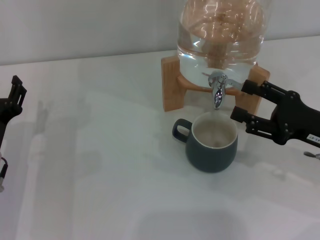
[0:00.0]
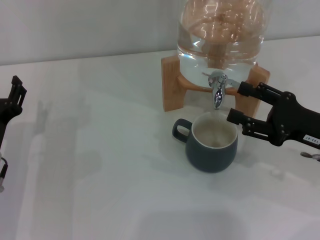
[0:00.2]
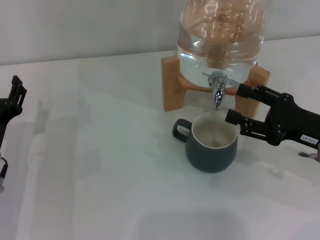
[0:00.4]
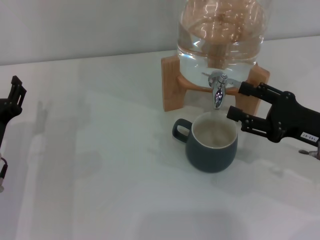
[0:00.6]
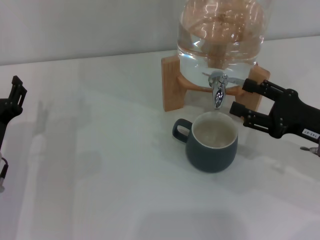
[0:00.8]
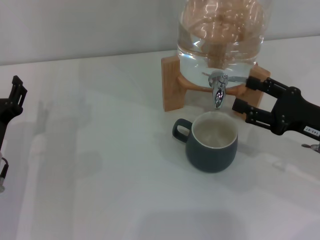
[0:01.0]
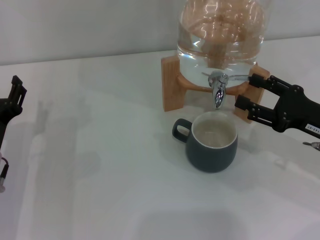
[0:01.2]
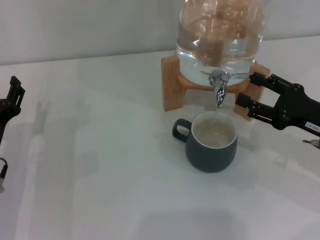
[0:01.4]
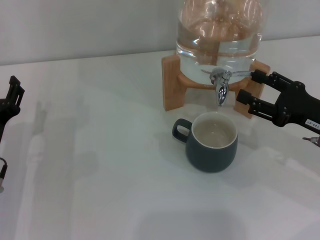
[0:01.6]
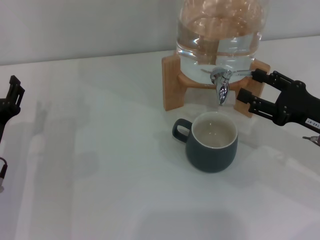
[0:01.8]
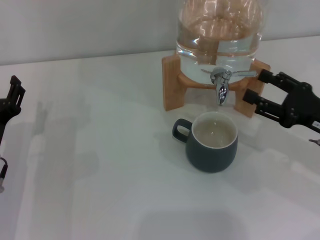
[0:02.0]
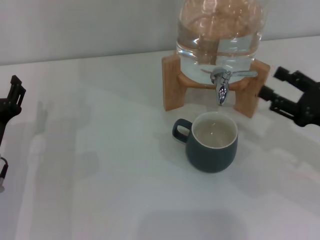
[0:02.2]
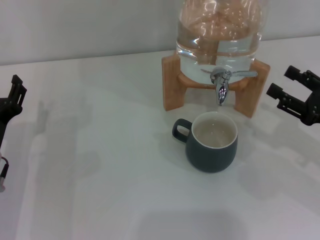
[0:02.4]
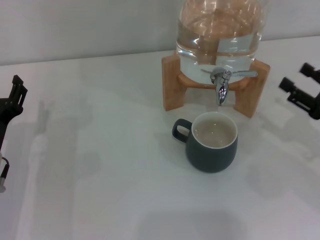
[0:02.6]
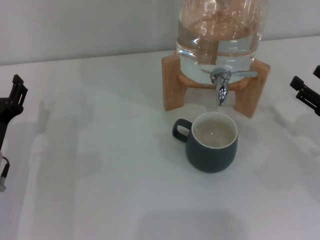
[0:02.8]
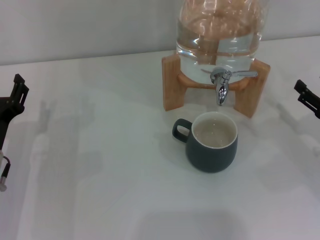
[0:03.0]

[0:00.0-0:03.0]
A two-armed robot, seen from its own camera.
Task of the whole recording: the left gripper pick up the black cup and place it horizontally under the faucet, the right gripper turn on the faucet to fill the cup, and then turn off the faucet.
Step, 0:00.2 to 0:02.0: Close the dispenser valve with the right gripper.
0:00.0 to 0:01.6: The grippers stay close to where they were, moving slightly.
0:01.6 to 0:03.0: The right gripper changes place by about 5 cm.

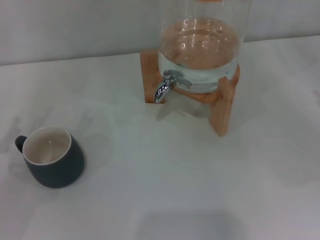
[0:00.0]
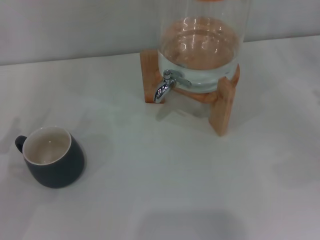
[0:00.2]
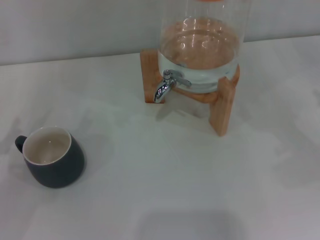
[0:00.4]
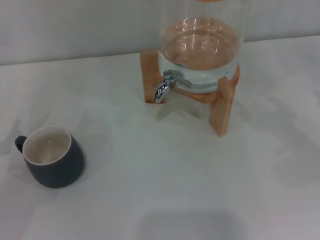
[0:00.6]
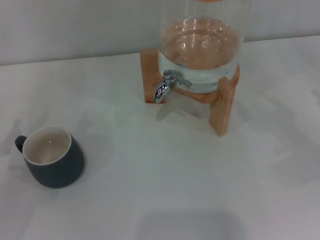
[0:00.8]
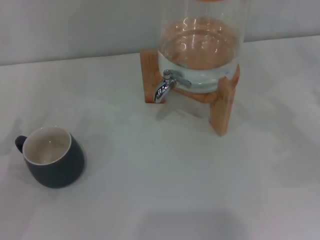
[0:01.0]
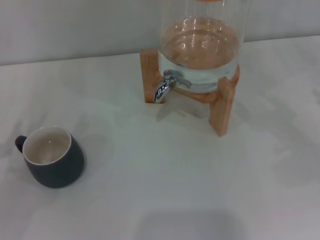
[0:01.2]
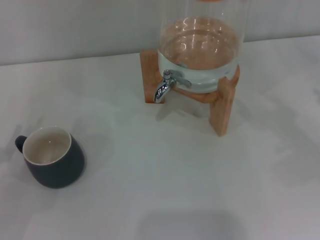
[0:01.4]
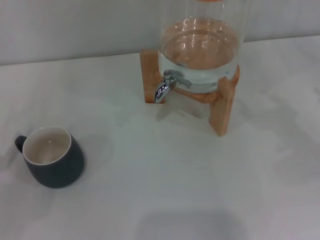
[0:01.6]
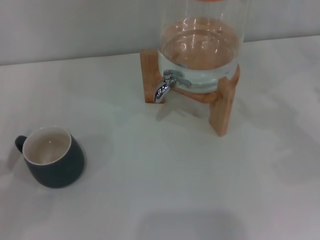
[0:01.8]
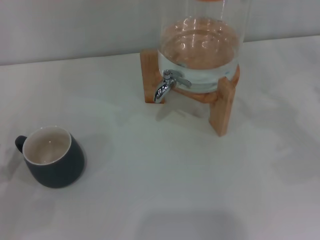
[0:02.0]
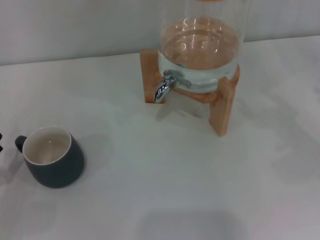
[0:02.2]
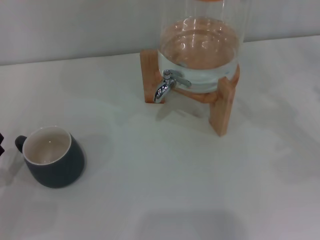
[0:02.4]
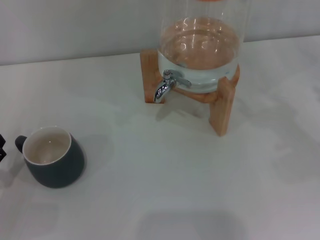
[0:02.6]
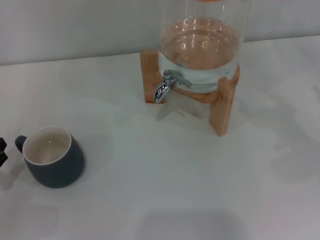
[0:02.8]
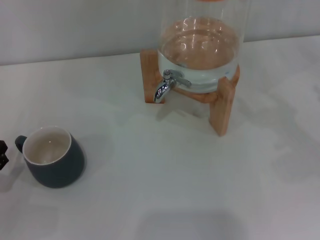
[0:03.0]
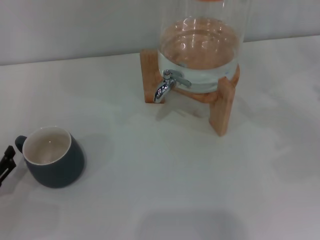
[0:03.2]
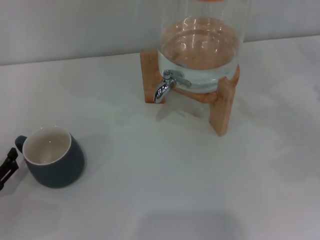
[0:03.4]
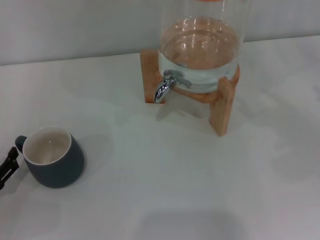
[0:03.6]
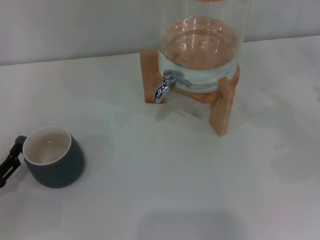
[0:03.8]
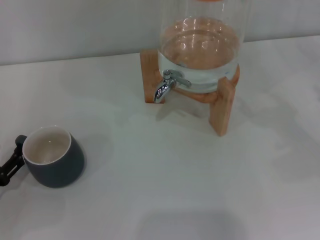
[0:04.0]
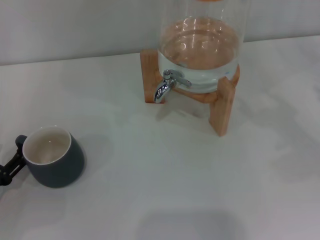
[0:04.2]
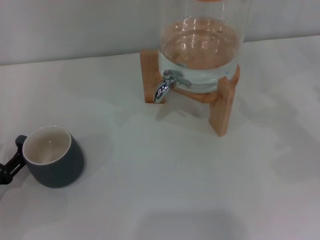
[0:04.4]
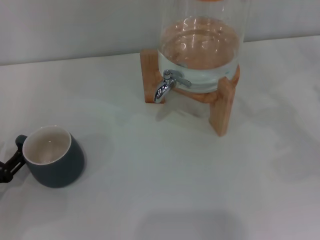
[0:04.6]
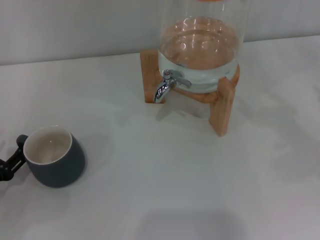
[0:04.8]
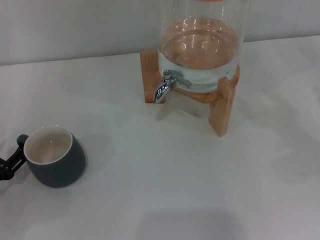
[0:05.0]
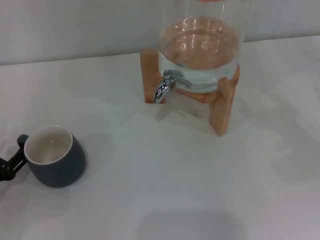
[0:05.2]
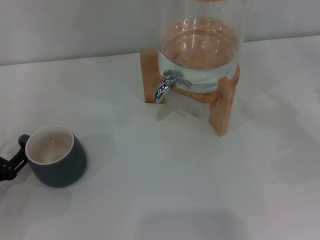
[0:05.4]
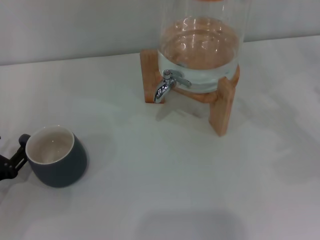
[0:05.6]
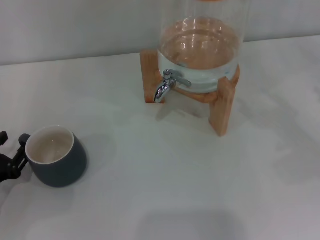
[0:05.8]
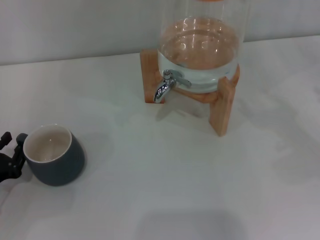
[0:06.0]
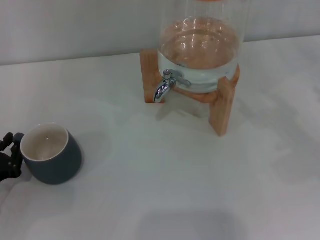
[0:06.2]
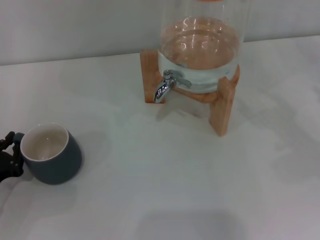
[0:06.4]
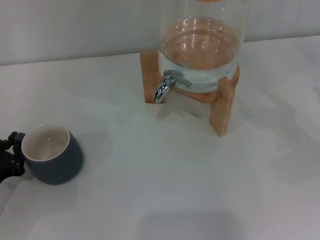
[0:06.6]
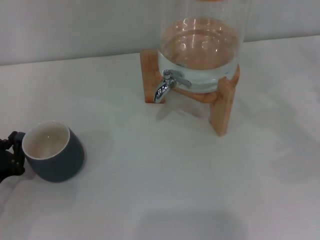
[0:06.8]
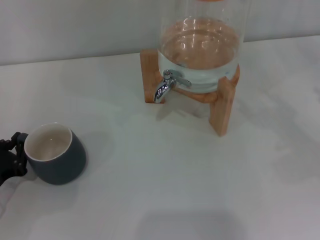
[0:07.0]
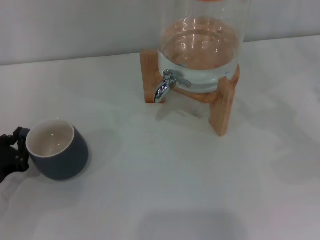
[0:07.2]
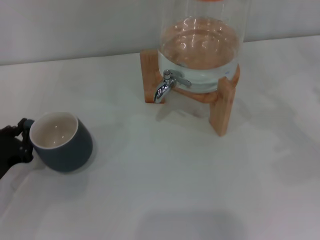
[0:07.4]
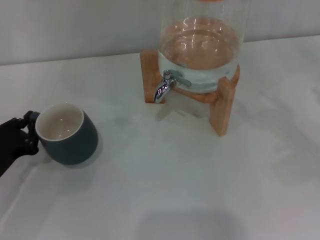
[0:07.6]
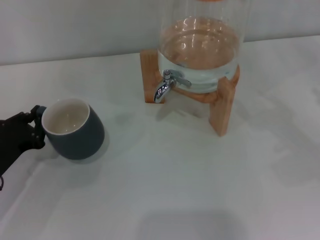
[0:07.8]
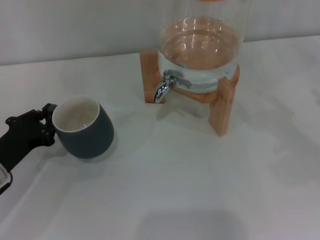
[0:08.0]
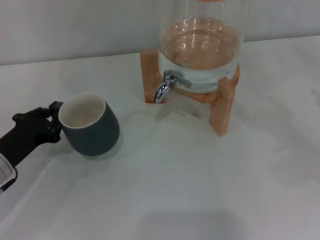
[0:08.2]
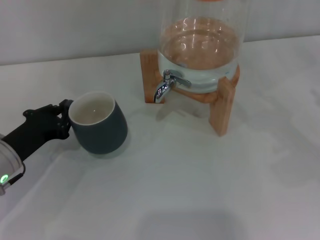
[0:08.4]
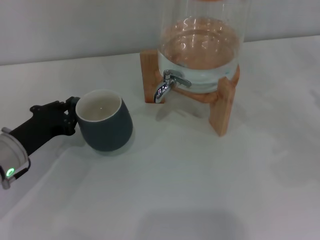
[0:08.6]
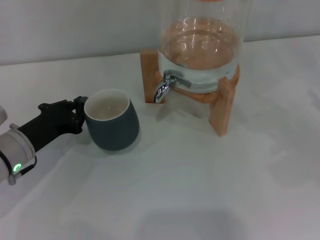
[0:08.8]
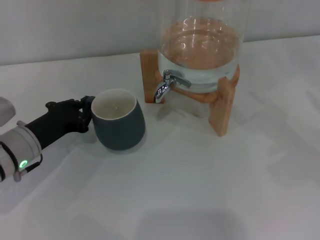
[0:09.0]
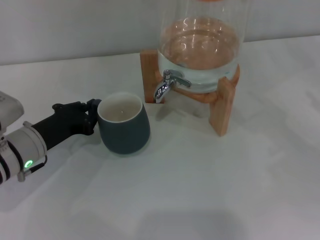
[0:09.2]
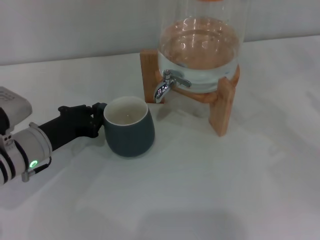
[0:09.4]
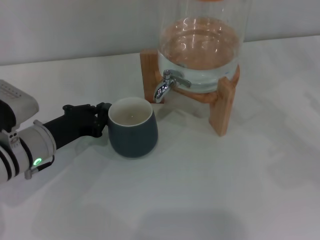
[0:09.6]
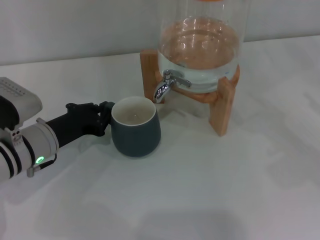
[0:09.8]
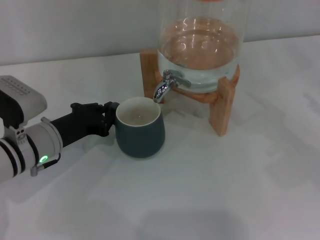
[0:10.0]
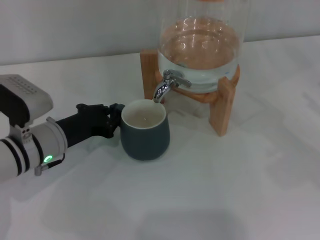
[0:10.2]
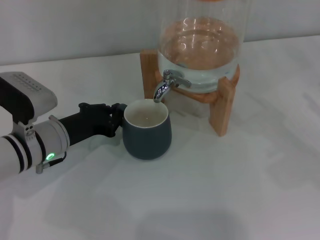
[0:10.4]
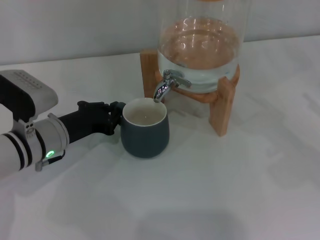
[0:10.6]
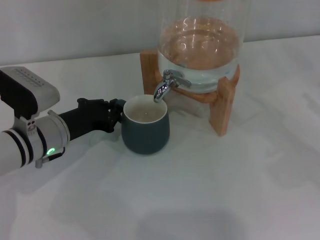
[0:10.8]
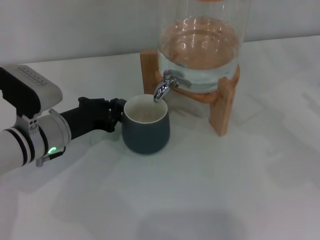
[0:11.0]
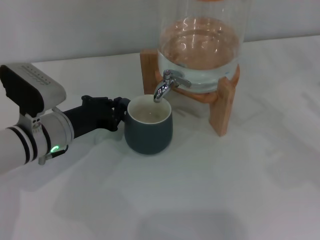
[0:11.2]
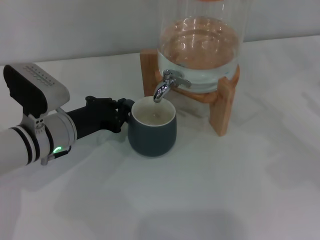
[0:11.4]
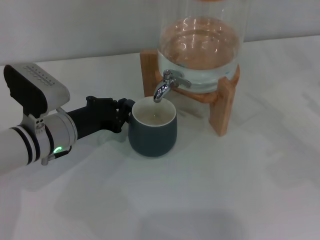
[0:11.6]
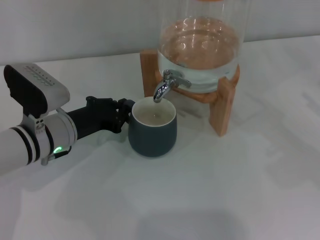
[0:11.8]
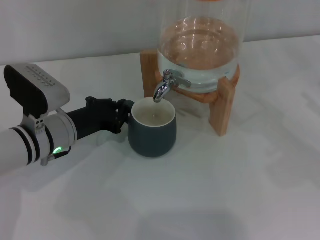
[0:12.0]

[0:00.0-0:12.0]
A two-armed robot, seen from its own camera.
Task of the whole recording: the left gripper pick up the black cup and place it horizontally under the faucet, the right gripper turn on the faucet to fill the cup, and then turn off the faucet.
0:03.0 to 0:06.0: There are only small adjustments of the grippers.
0:06.0 to 0:07.6: The left gripper closes.
0:07.6 to 0:09.0: The left gripper is displaced to the right and forward by approximately 10 cm.
0:09.0 to 0:12.0: The grippers stay close to where they were, moving slightly.

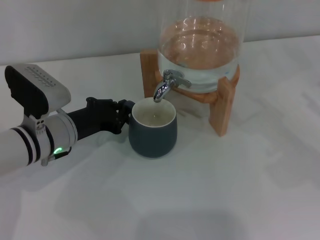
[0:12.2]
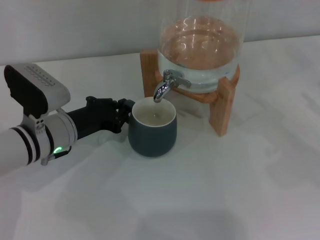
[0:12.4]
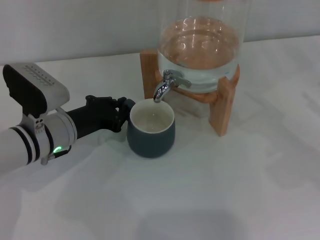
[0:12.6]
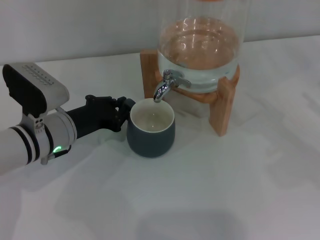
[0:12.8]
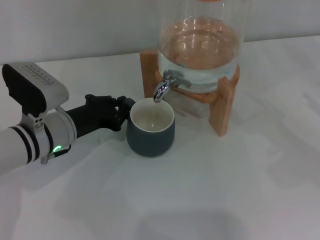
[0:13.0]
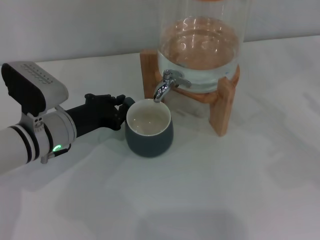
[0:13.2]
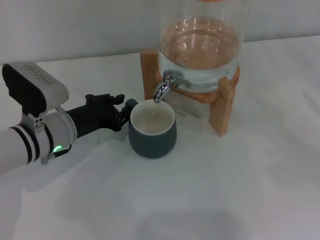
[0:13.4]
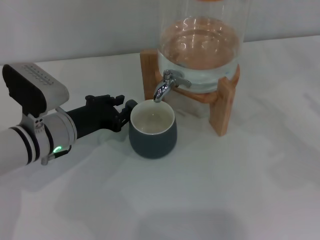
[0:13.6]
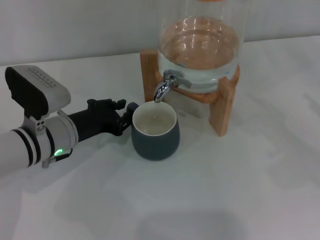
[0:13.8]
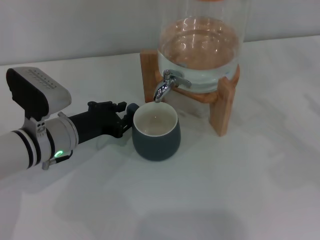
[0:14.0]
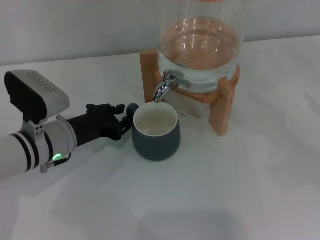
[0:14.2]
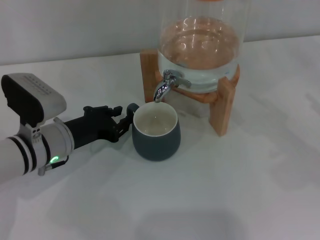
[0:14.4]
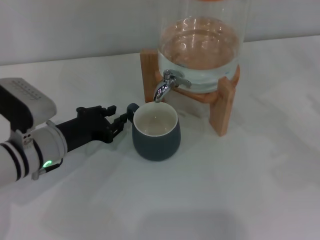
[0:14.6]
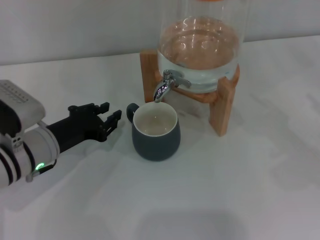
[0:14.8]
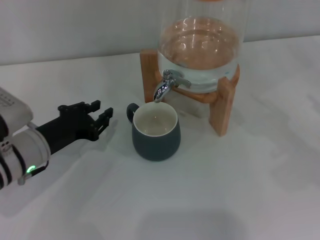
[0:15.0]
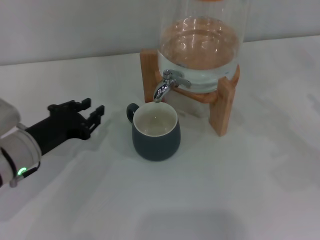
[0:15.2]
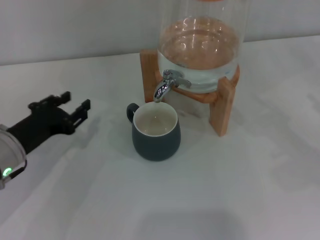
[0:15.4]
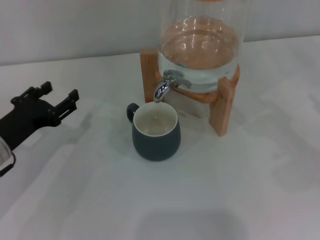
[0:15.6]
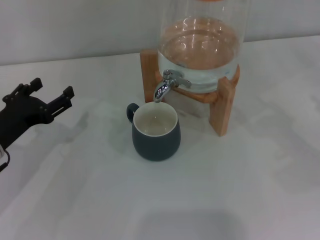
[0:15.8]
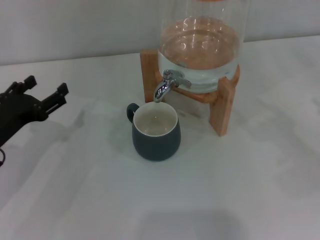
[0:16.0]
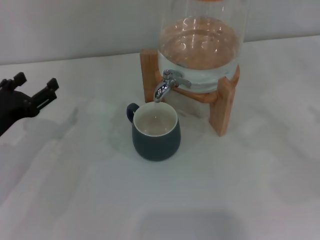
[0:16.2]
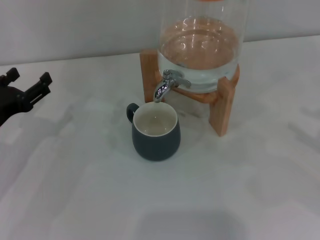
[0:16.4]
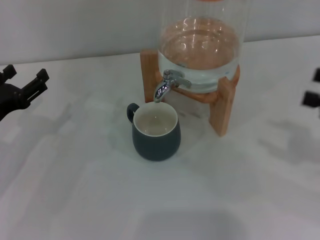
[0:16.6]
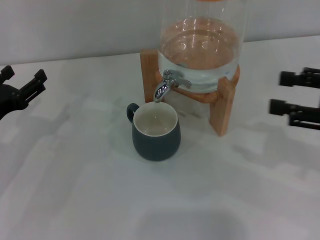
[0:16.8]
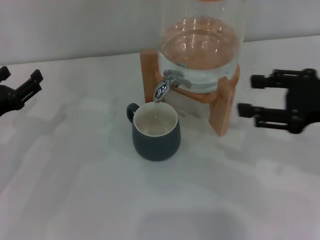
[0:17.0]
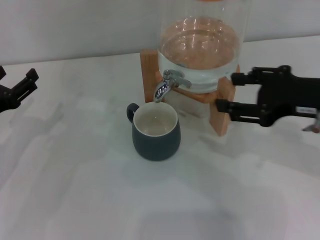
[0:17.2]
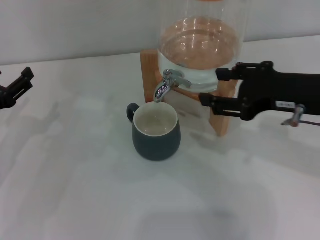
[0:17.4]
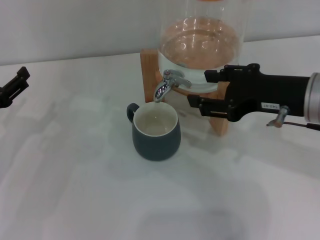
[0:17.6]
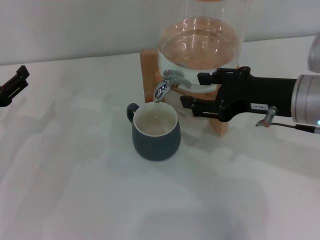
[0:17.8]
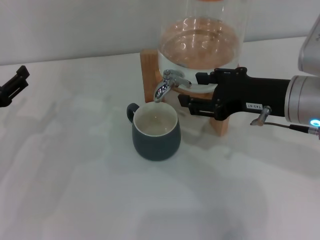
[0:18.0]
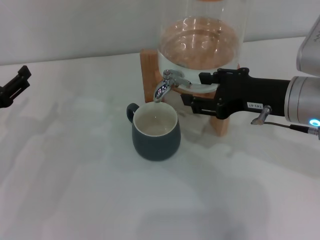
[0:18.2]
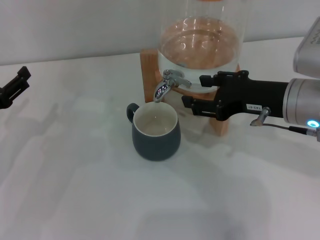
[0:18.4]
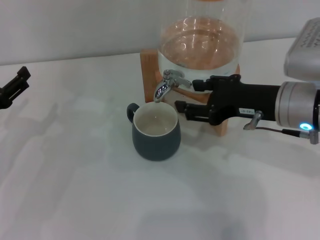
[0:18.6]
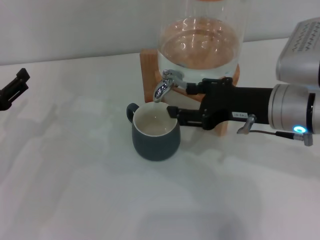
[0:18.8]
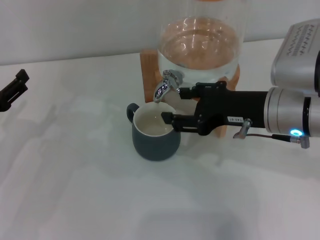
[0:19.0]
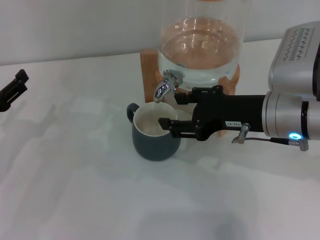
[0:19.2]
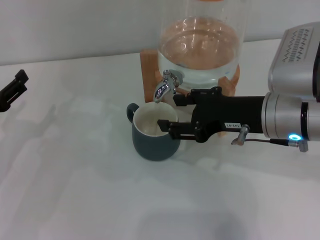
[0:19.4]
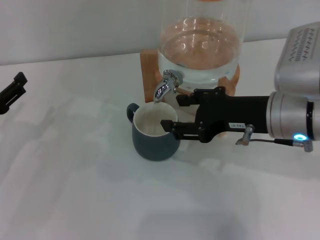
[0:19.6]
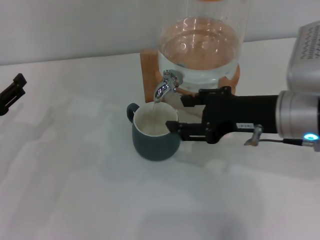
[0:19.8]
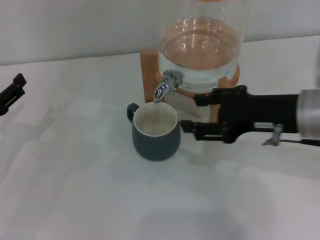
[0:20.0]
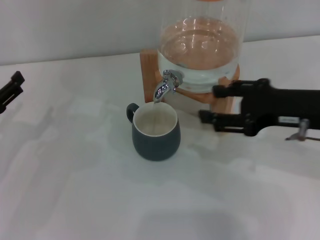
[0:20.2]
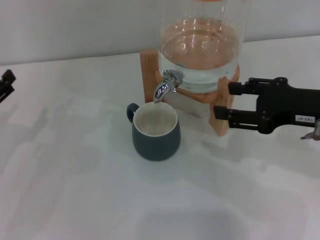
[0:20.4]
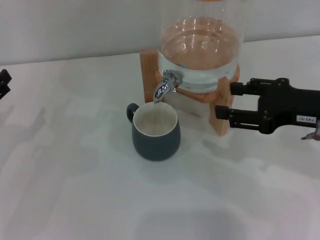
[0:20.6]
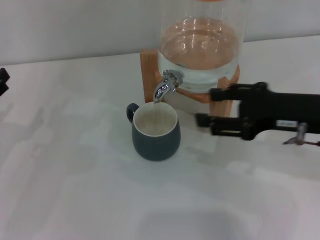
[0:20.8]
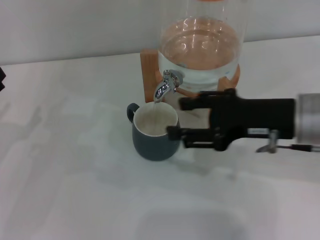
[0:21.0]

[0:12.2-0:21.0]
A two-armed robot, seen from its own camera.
Task of the whole recording: the left gripper pick up the black cup and place it horizontally under the faucet, the right gripper turn on the faucet to fill the cup, and then turn off the faucet.
Step, 0:12.2 to 0:14.6: Move the cup beneath the water dispenser nozzle with the left gripper.
Step, 0:14.8 to 0:19.4: Open the dispenser valve and fill the cup with water with the right gripper.
0:12.2 to 0:13.6: The two grippers keep their place.
0:13.6 to 0:15.2: The left gripper shifts by some 5 cm.
0:15.2 to 0:16.6: The left gripper goes about 5 cm to the left, and opens its fingers.
0:16.6 to 0:18.0: The right gripper heads to the left and forward, covering roughly 15 cm.
0:18.0 to 0:19.6: The grippers stay close to where they were, moving slightly.
0:19.6 to 0:21.0: The right gripper goes to the right and returns, about 10 cm each way.
